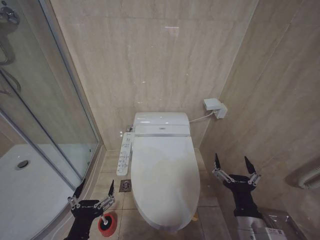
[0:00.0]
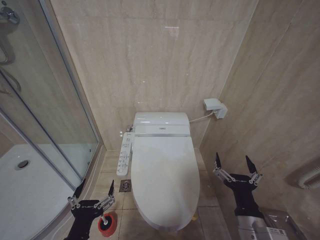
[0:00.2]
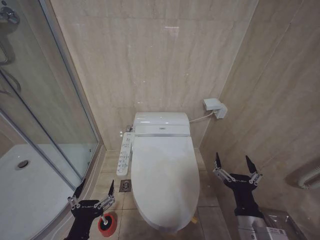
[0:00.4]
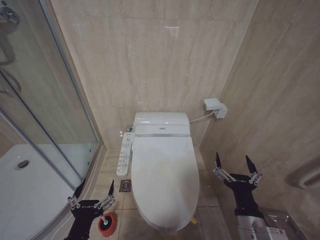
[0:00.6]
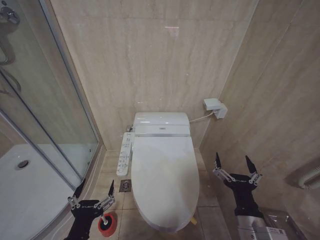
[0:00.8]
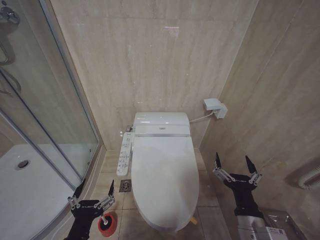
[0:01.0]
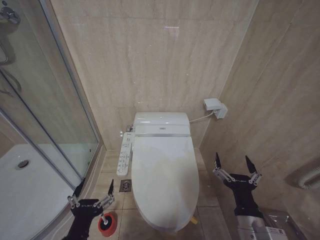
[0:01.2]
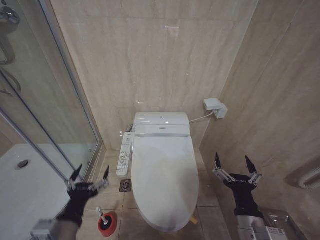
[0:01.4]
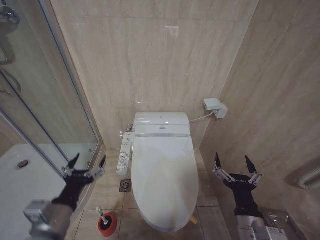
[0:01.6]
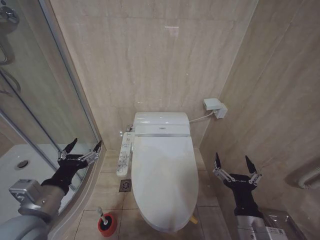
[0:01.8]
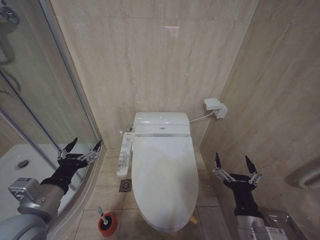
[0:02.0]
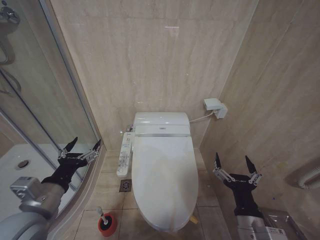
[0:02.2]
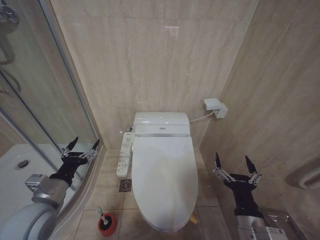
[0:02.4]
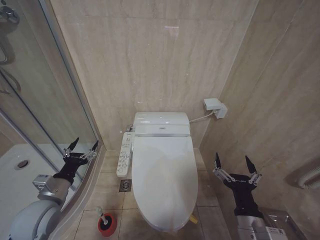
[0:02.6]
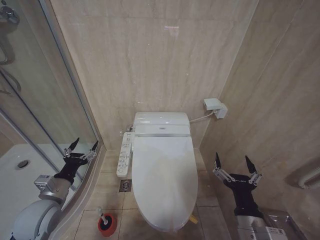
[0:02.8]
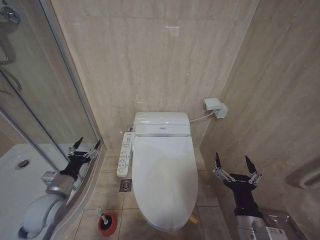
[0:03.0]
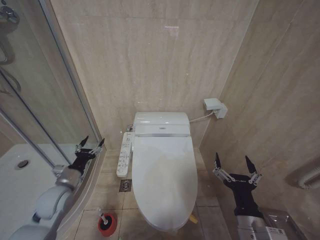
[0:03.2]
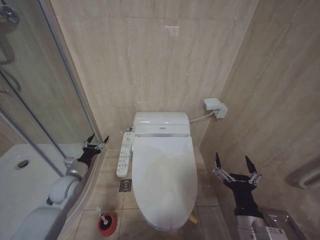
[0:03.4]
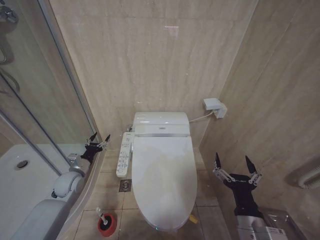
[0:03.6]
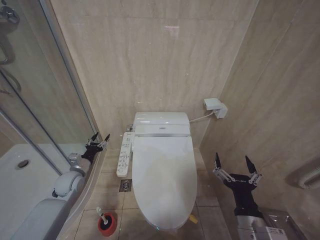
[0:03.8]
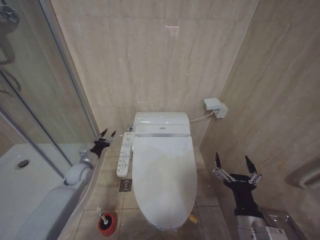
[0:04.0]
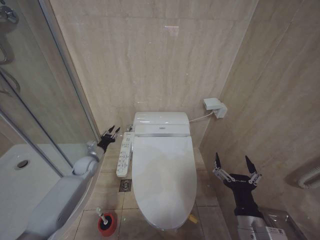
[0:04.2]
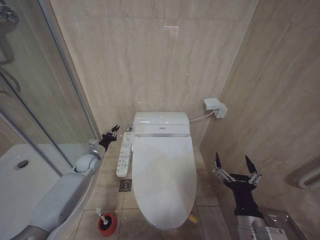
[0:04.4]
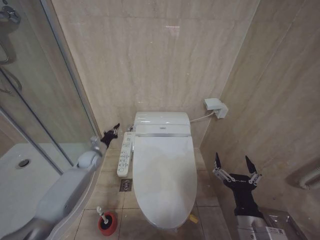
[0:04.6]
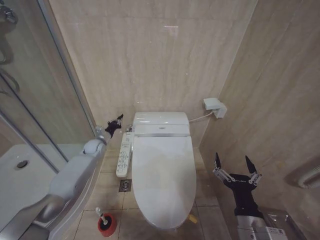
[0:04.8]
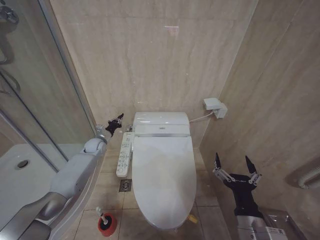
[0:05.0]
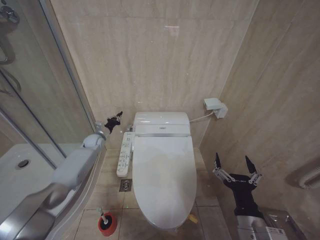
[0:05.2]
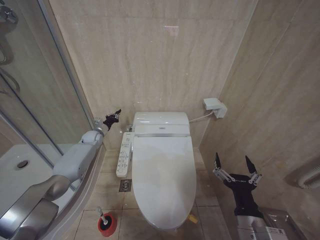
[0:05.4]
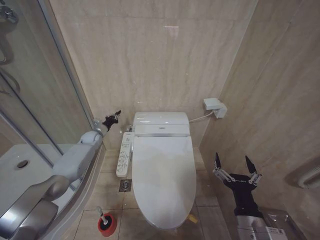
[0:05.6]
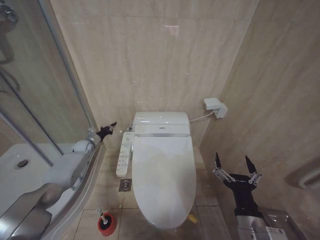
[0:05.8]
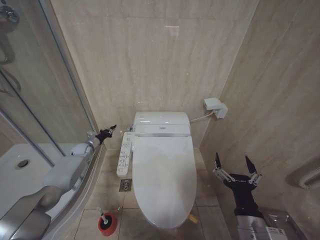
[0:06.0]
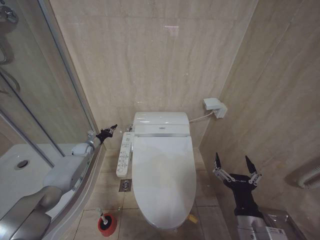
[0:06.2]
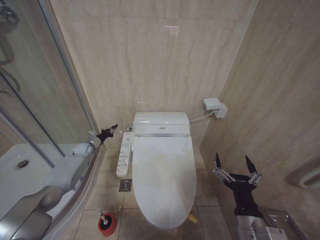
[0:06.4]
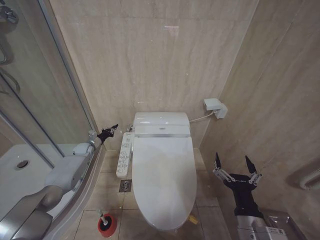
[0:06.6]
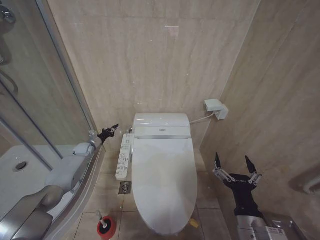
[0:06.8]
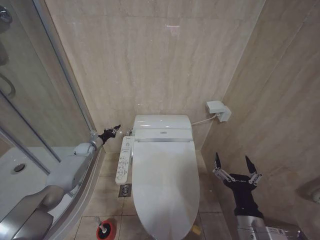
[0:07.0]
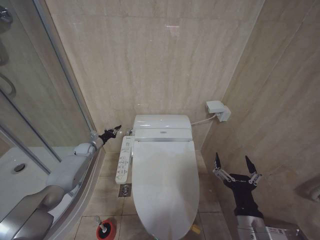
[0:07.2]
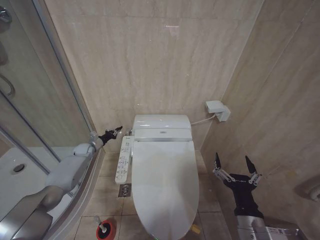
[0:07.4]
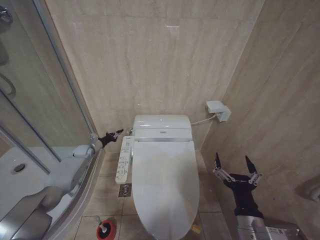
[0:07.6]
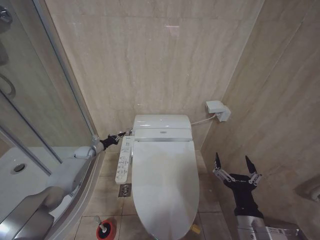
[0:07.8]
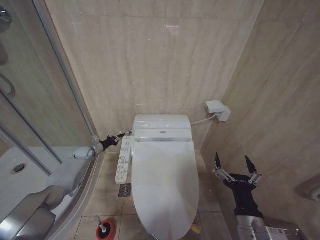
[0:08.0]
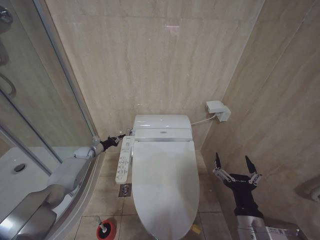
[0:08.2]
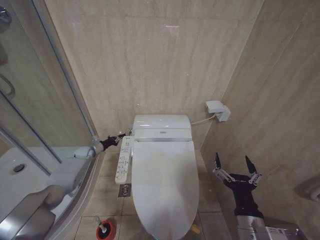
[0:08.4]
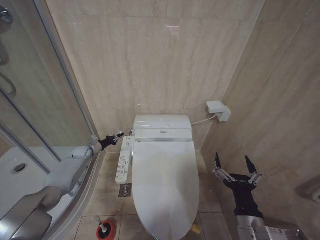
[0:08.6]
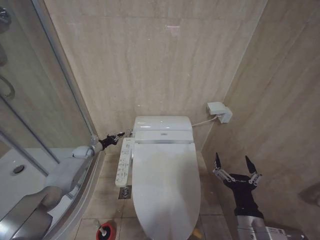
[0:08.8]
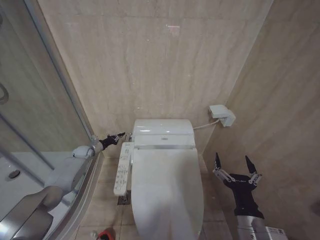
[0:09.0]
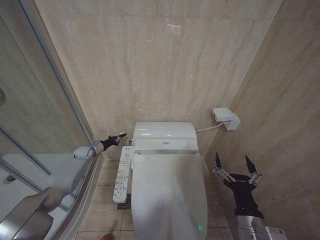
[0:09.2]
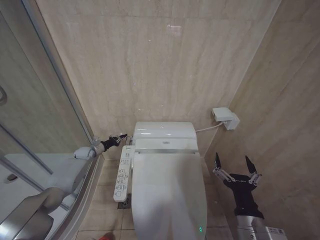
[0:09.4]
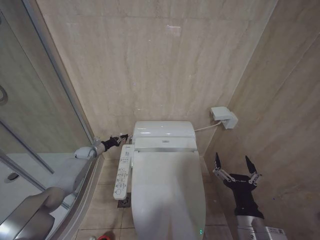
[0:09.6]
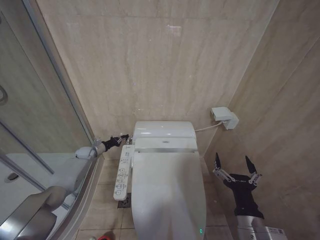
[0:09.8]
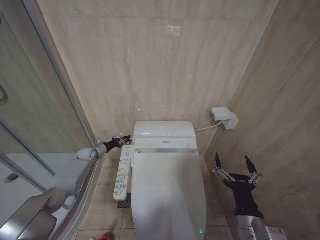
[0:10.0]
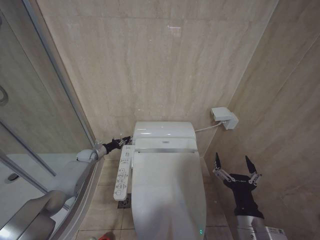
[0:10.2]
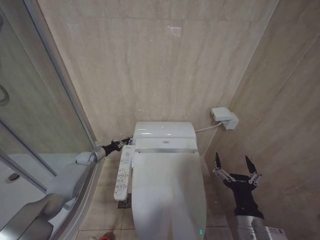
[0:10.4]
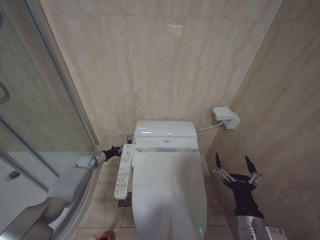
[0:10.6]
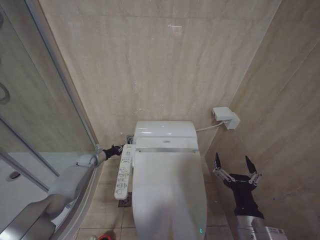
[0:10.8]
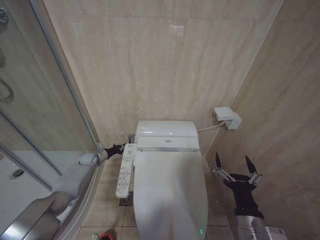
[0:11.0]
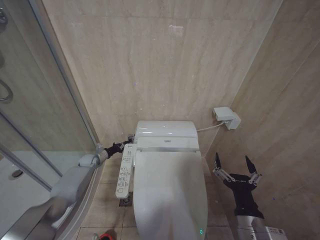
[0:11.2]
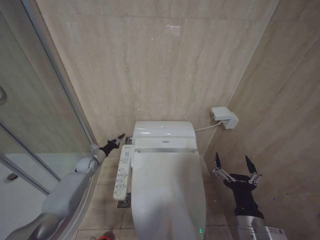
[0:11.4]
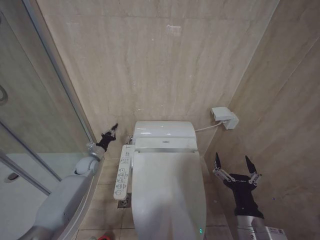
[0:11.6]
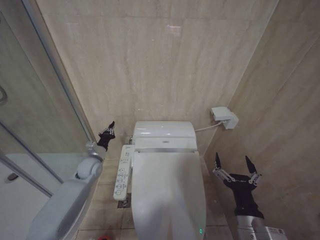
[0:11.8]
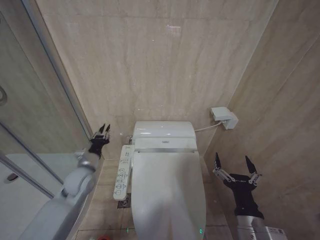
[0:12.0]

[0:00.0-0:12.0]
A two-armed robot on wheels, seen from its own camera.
Task of the whole recording: Open the toilet lid, clean the toilet bowl with a toilet brush, close the toilet lid, and flush.
0:00.0 to 0:01.6: The left gripper goes roughly 5 cm forward.
0:01.6 to 0:03.0: The left gripper heads forward, to the left and downward, covering about 15 cm.
0:03.0 to 0:04.4: The left gripper is displaced forward by roughly 20 cm, and closes its fingers.
0:04.4 to 0:06.0: The left gripper shifts approximately 10 cm forward and to the left.
0:06.0 to 0:09.0: The grippers move only a little.
0:09.0 to 0:10.4: The grippers make only small movements.
0:10.4 to 0:12.0: The left gripper heads backward, upward and to the right, covering roughly 20 cm.

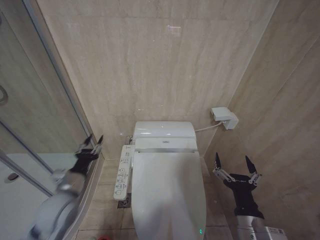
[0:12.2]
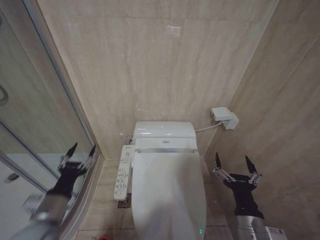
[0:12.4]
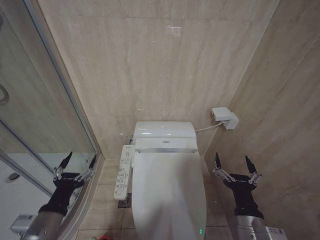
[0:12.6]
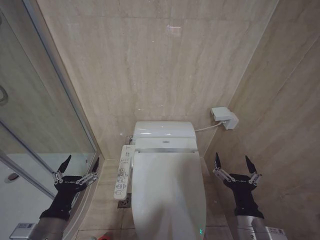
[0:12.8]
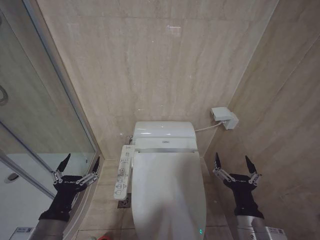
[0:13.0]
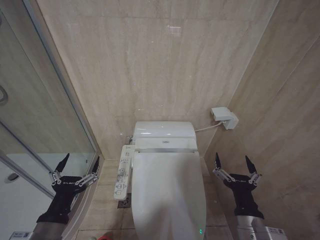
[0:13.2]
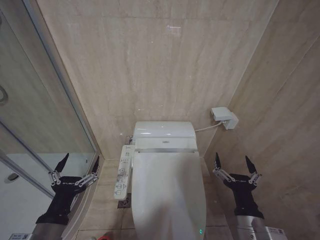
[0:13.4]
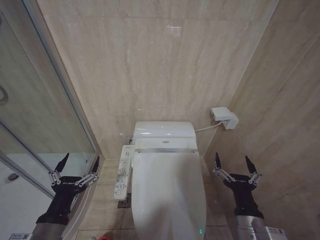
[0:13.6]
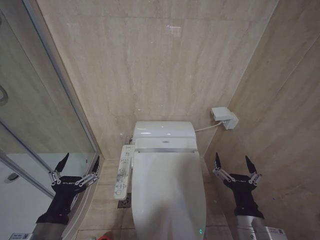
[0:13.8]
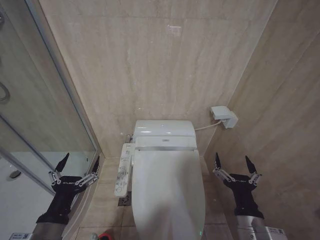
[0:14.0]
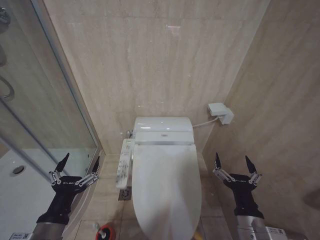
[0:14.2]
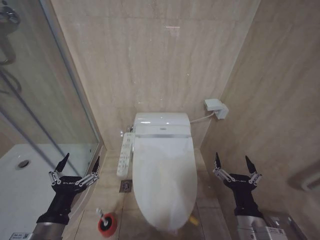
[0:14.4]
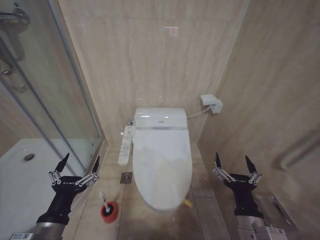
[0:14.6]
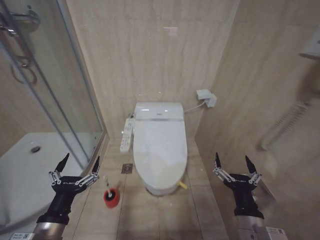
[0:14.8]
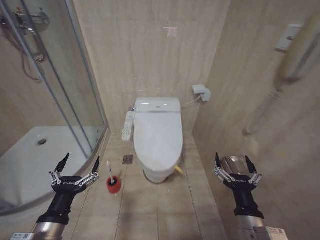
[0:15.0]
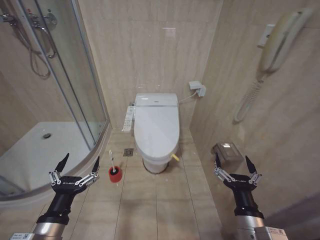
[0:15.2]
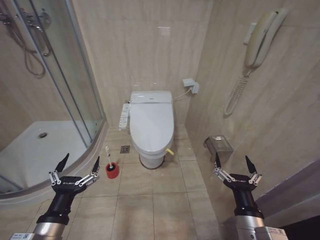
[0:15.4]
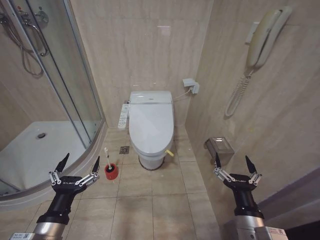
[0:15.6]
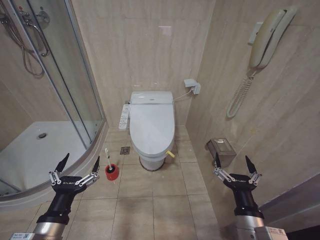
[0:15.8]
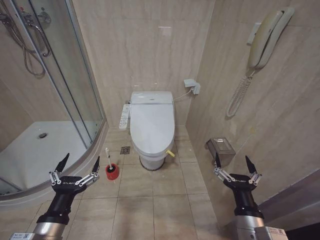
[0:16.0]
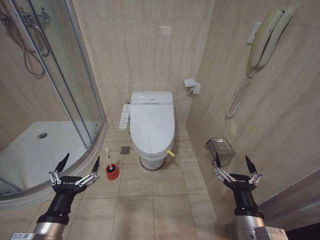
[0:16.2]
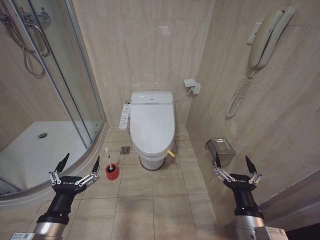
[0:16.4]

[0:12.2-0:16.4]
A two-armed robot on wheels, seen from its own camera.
Task of the whole recording: Open the toilet lid, clean the toilet bowl with a toilet brush, close the toilet lid, and flush.
0:12.2 to 0:13.6: The left gripper moves backward, approximately 20 cm, and opens up.
0:15.0 to 0:16.4: Both grippers stay put.
